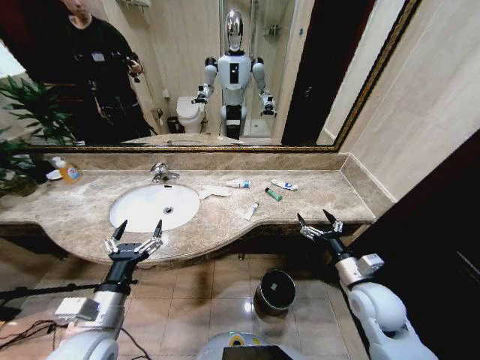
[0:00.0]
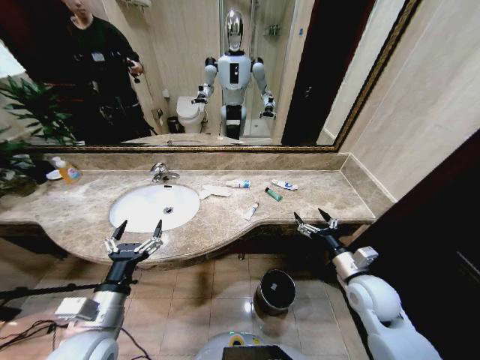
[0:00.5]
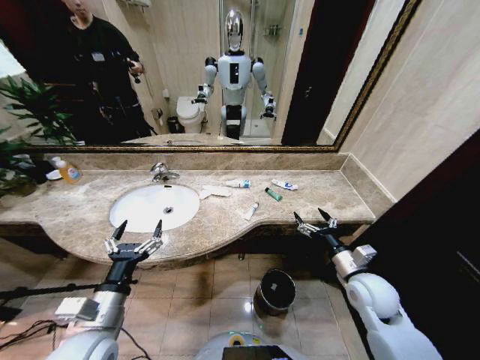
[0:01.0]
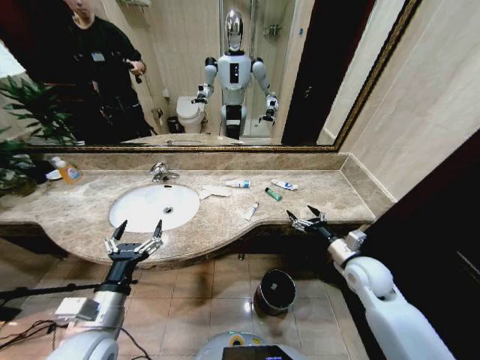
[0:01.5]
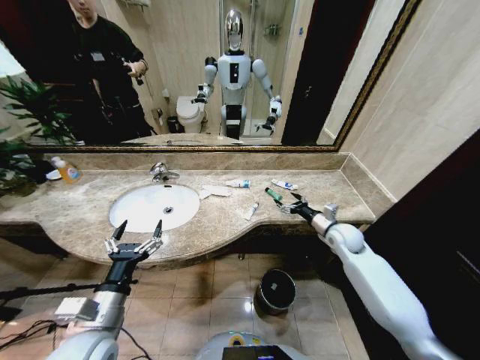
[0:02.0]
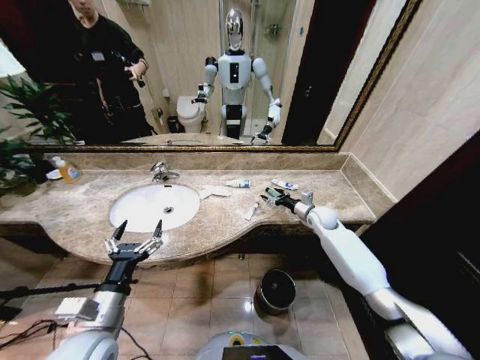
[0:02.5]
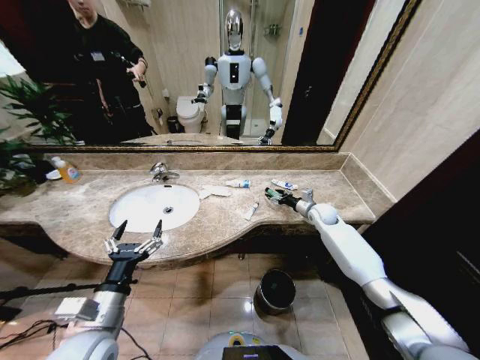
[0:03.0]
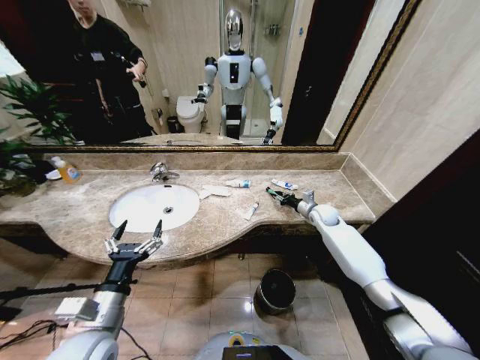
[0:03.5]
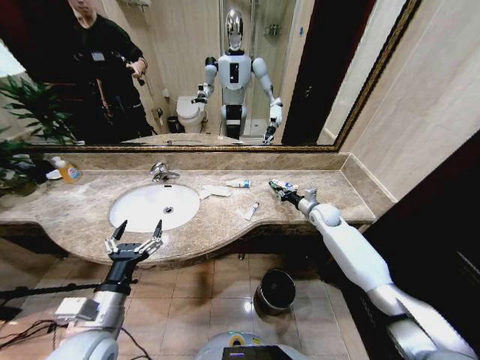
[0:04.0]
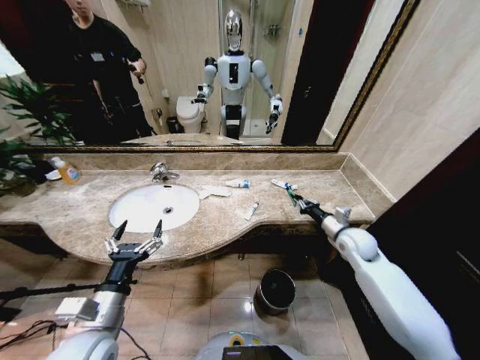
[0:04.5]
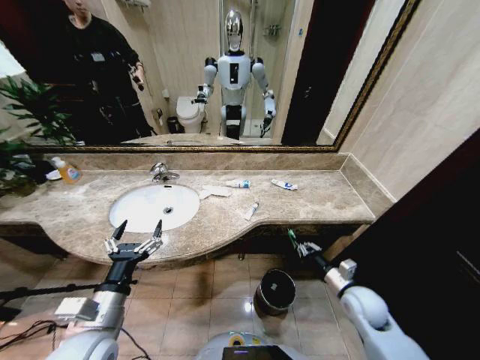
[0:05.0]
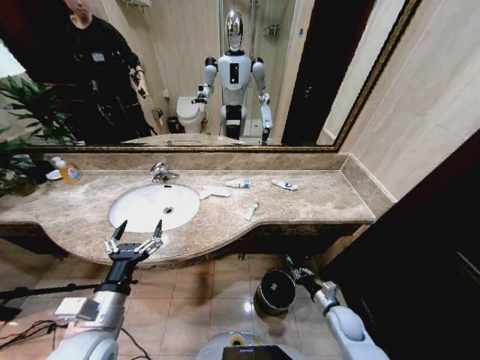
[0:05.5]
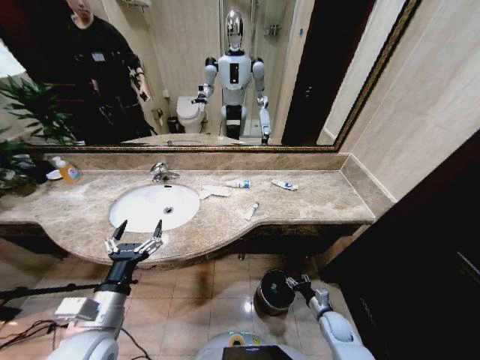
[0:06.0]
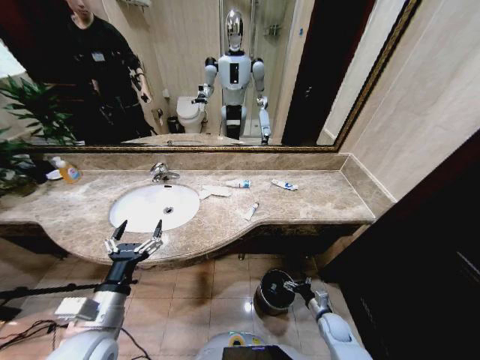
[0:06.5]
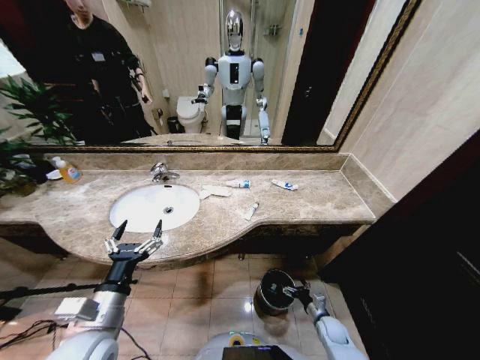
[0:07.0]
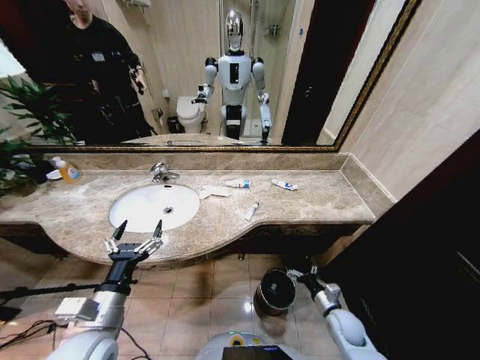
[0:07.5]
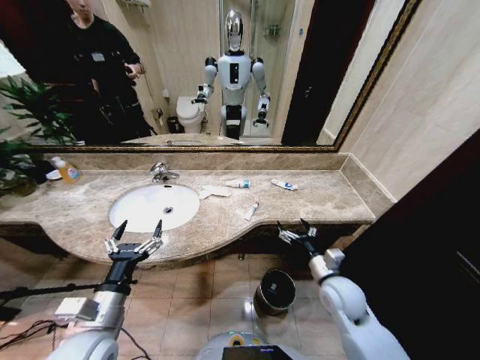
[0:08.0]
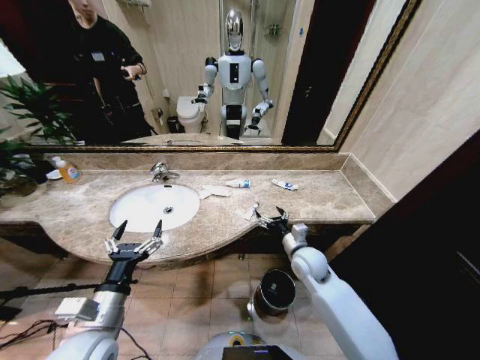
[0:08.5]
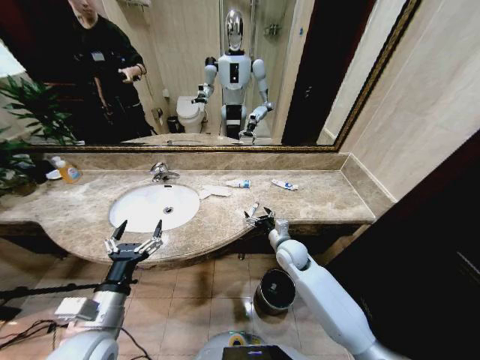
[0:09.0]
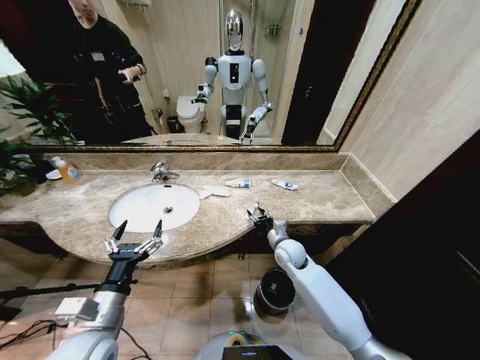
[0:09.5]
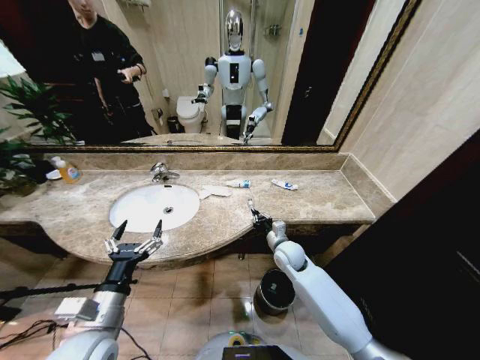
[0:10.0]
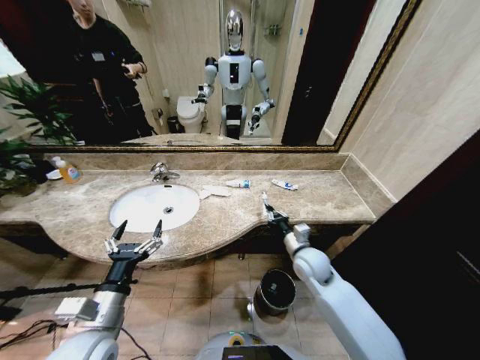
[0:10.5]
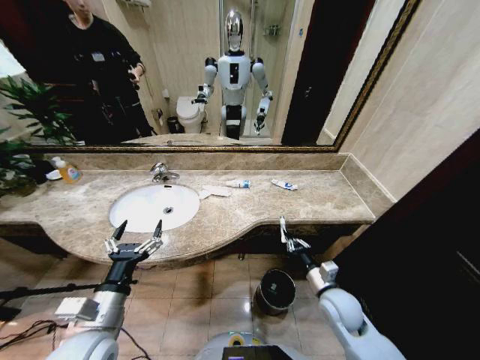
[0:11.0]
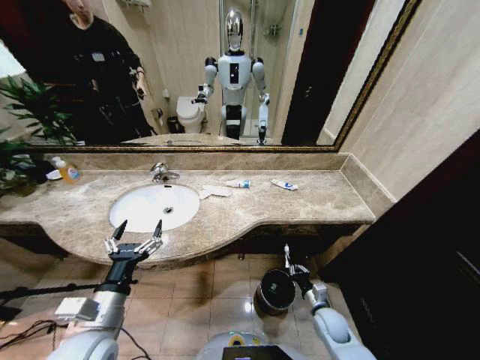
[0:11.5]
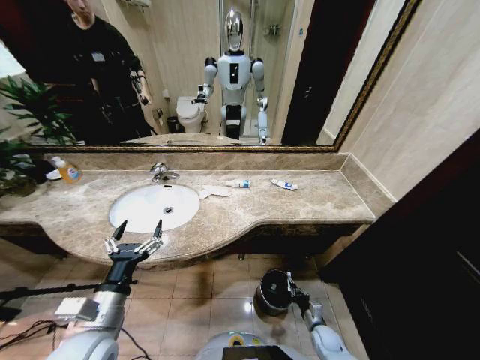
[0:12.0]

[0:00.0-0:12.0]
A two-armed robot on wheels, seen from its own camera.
Task of the whole recording: Pick up the trash from the sink and place it in the trash bin.
0:02.0 to 0:04.0: The right gripper shifts about 10 cm forward, and closes its fingers.
0:04.0 to 0:06.0: The right gripper goes about 40 cm backward and downward, and opens its fingers.
0:06.0 to 0:08.0: The right gripper shifts about 25 cm upward, and opens.
0:08.0 to 0:10.0: The right gripper travels forward and to the left by roughly 15 cm, and closes its fingers.
0:10.0 to 0:12.0: The right gripper goes roughly 35 cm downward, backward and to the right.

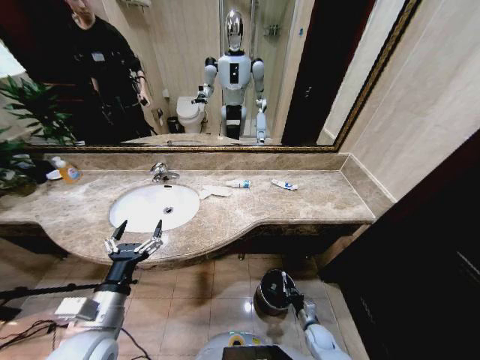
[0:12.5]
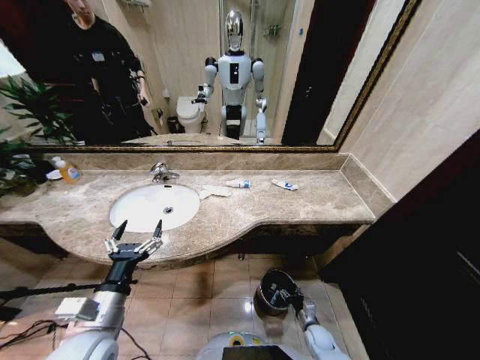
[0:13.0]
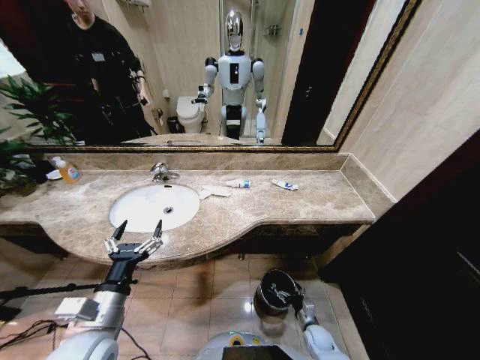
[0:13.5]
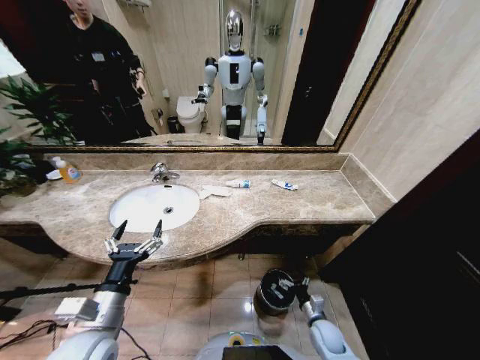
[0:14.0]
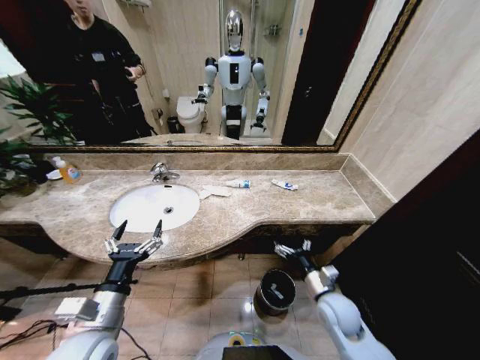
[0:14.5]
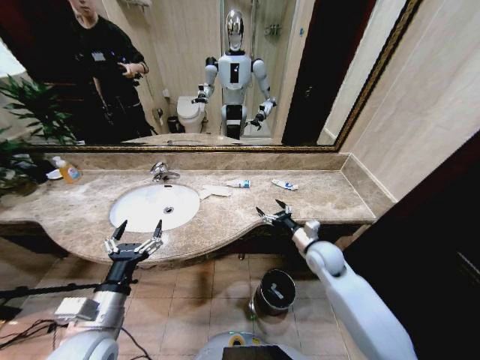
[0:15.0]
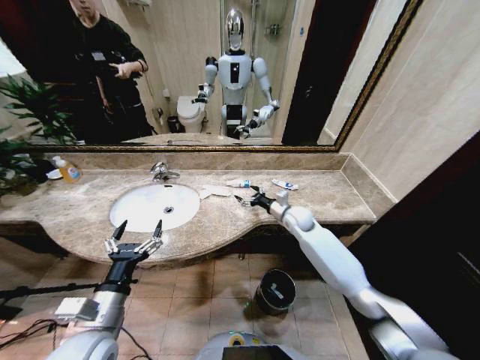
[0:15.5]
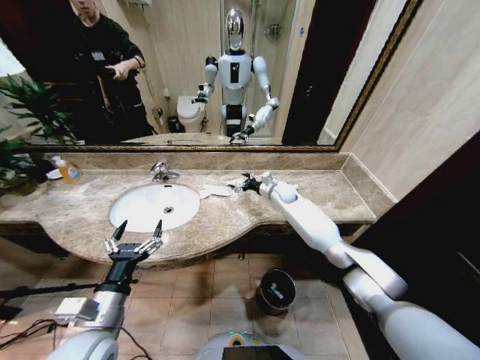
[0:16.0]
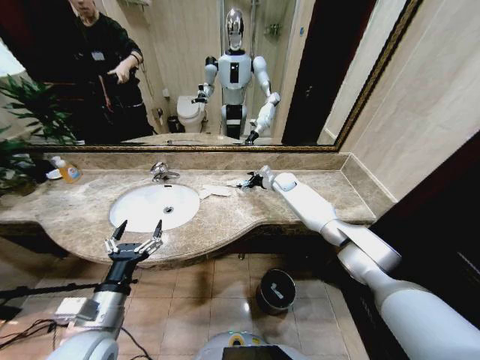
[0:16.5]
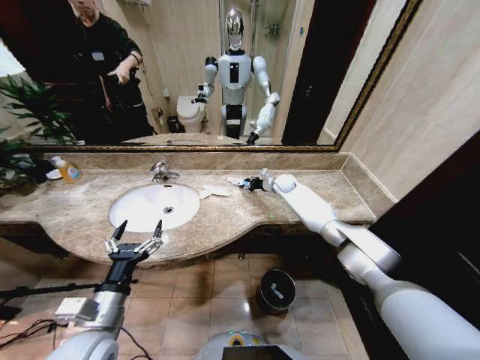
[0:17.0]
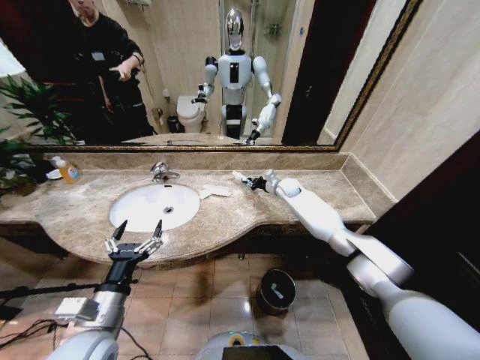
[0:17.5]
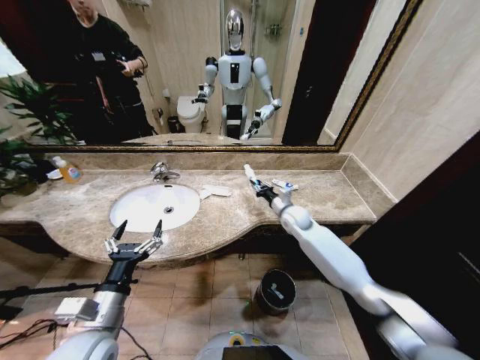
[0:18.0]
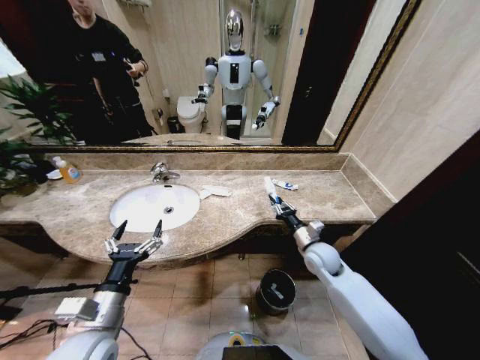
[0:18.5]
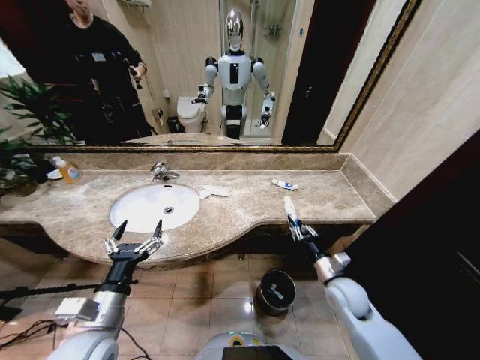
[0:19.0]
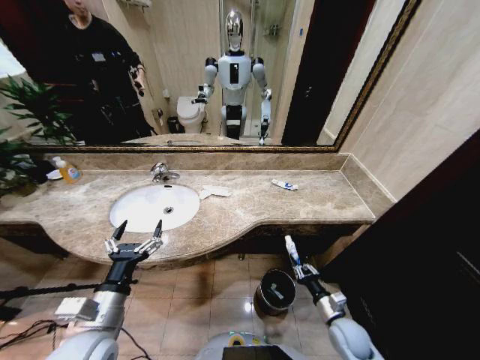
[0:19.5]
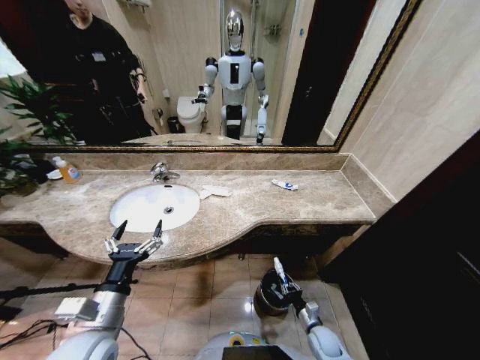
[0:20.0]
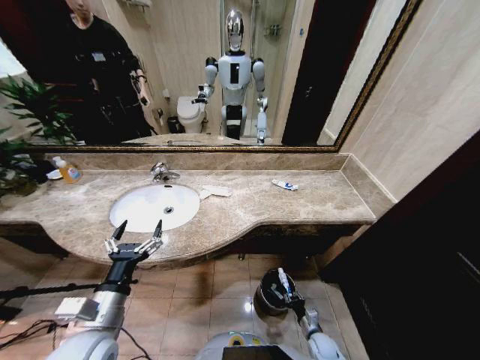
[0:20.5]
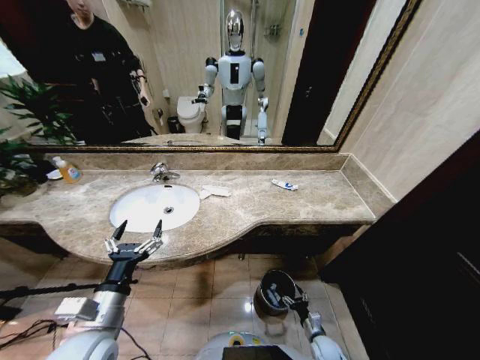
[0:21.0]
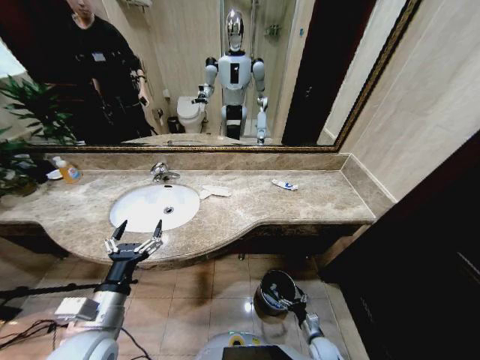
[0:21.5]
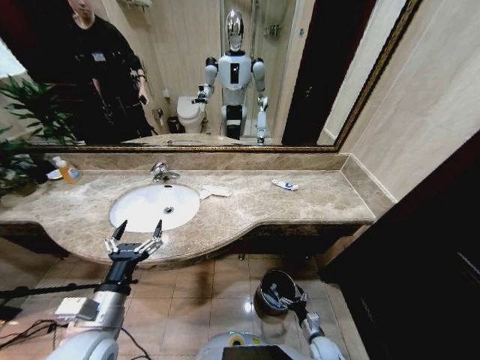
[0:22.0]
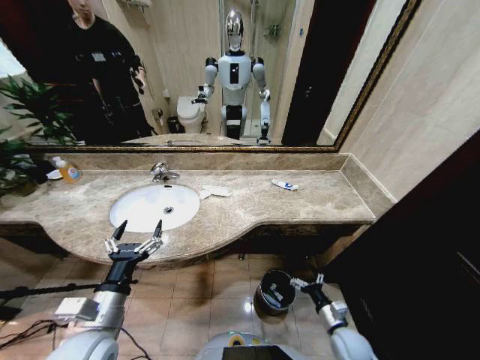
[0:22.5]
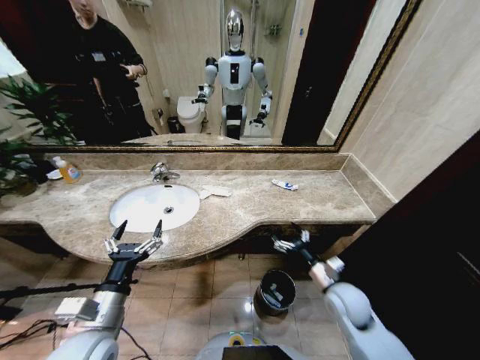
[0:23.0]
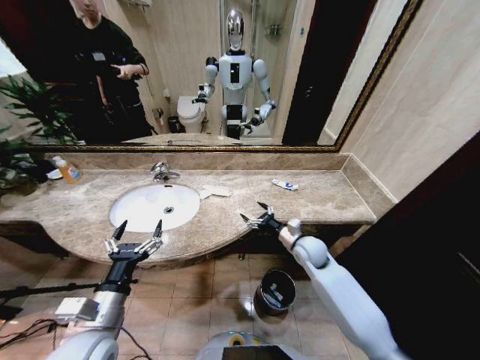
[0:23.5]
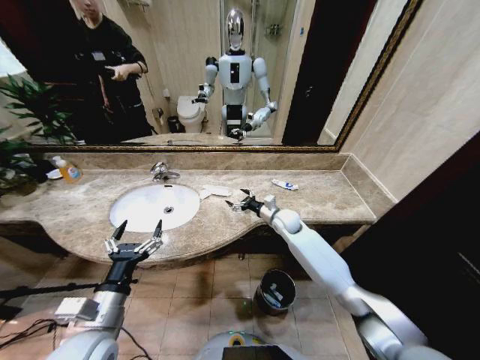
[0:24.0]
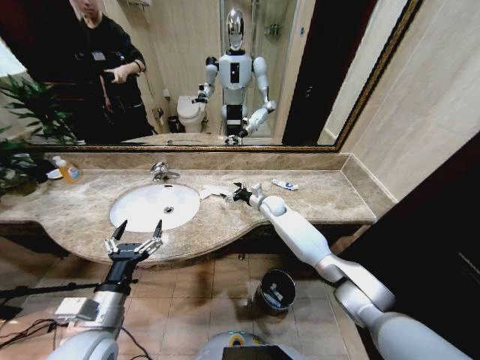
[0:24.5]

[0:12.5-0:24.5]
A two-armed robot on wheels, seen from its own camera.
Task of the whole recording: Pick up the trash from the sink and place it in the trash bin.
0:12.5 to 0:14.5: The right gripper travels upward by roughly 25 cm, and opens.
0:14.5 to 0:16.5: The right gripper heads forward, covering some 40 cm.
0:16.5 to 0:18.5: The right gripper is displaced backward by about 30 cm, and closes its fingers.
0:18.5 to 0:20.5: The right gripper travels downward and backward by about 35 cm.
0:20.5 to 0:22.5: The right gripper is displaced upward by about 15 cm, and opens up.
0:22.5 to 0:24.5: The right gripper is displaced forward, upward and to the left by some 50 cm.

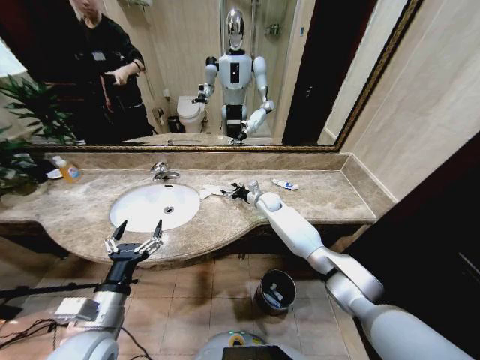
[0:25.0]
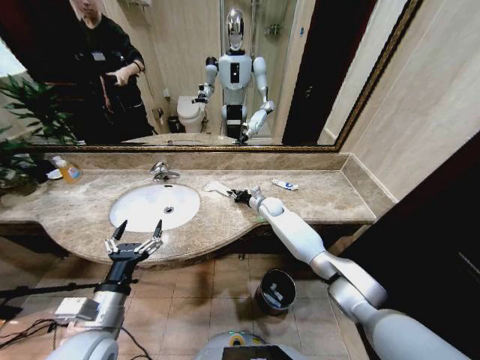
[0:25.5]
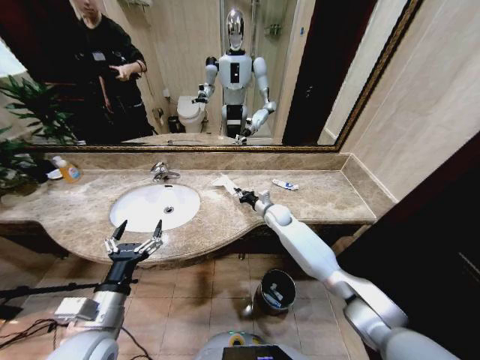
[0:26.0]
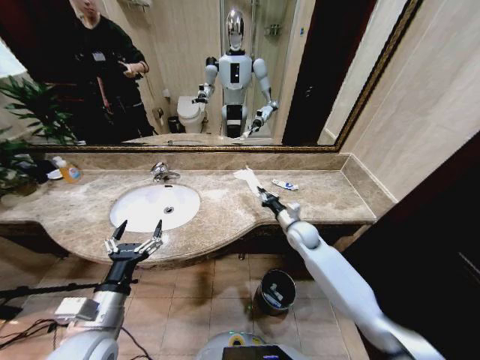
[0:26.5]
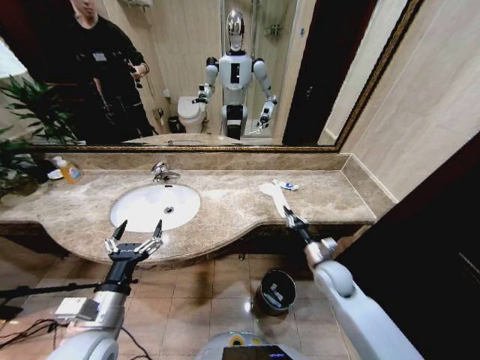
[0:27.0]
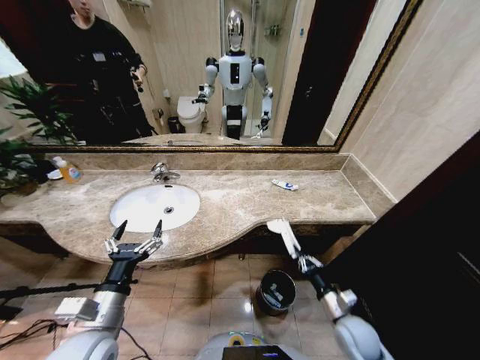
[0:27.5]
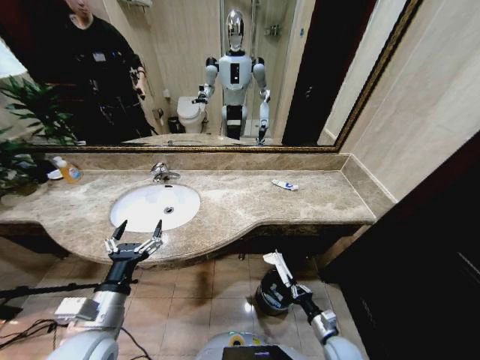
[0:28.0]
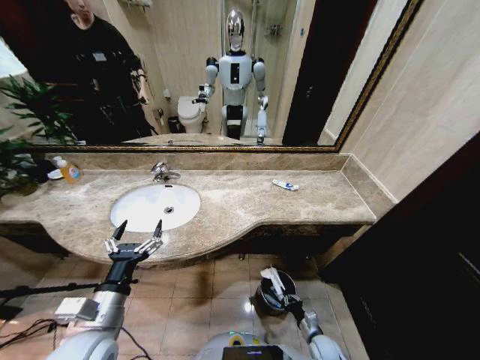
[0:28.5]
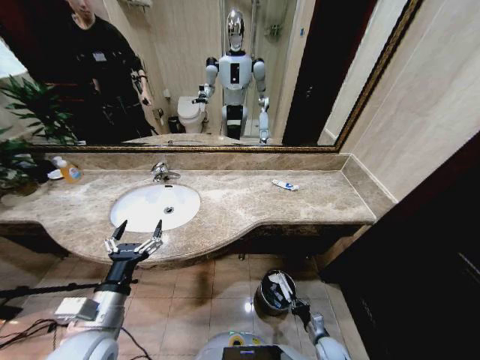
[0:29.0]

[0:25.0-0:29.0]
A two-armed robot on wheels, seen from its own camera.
Task of the whole recording: Pick up the trash from the sink and place it in the trash bin.
0:25.0 to 0:27.0: The right gripper is displaced backward and to the right by some 35 cm, and closes.
0:27.0 to 0:29.0: The right gripper shifts some 35 cm downward and backward.
